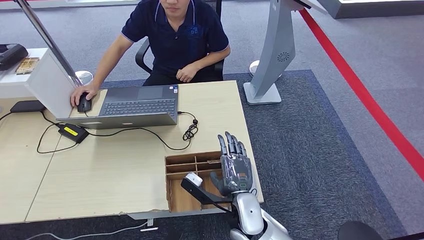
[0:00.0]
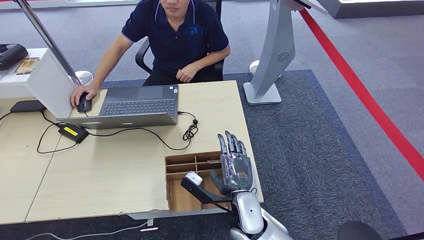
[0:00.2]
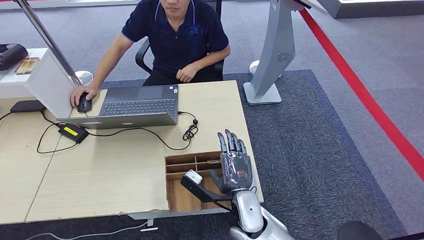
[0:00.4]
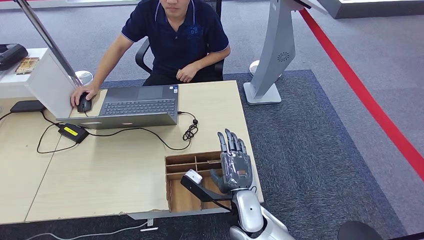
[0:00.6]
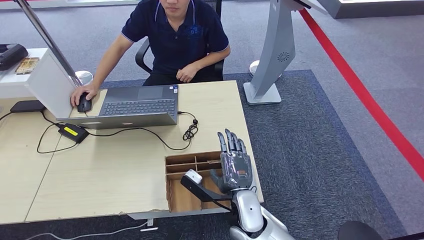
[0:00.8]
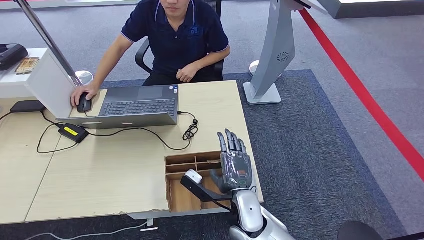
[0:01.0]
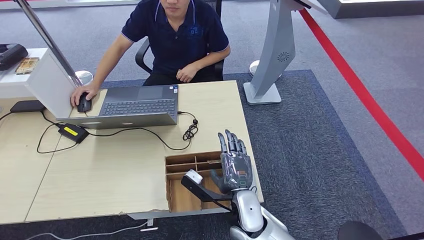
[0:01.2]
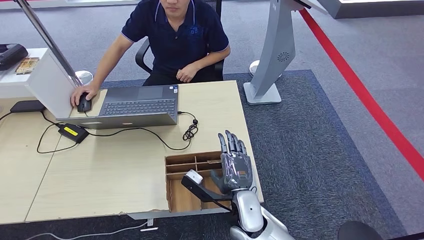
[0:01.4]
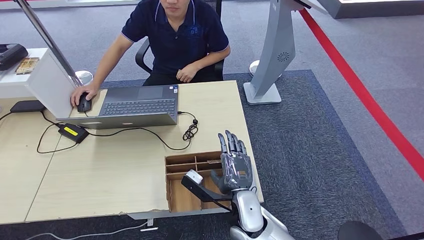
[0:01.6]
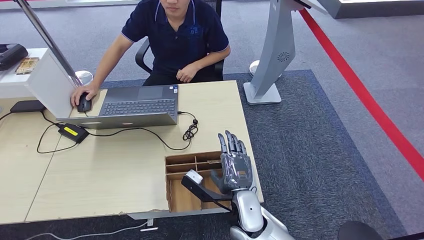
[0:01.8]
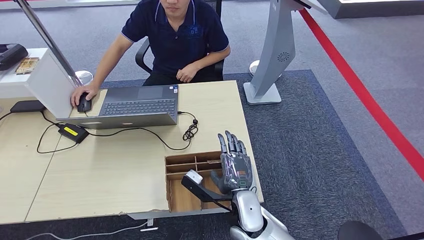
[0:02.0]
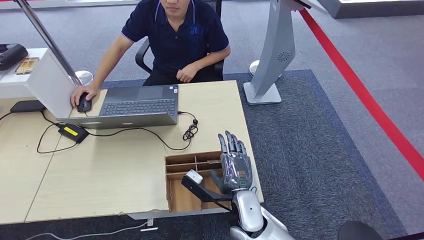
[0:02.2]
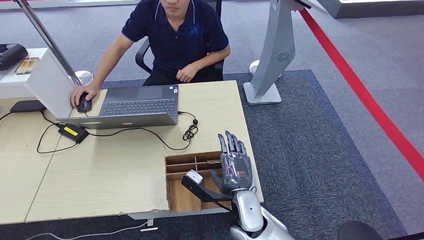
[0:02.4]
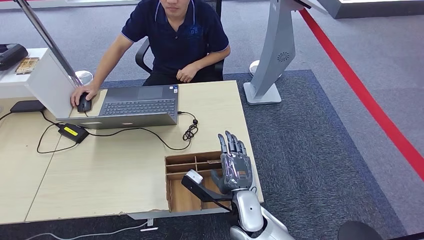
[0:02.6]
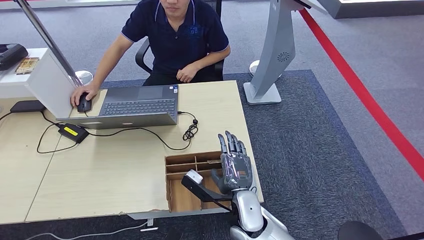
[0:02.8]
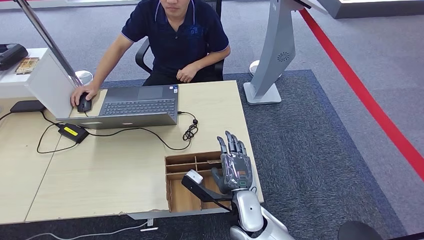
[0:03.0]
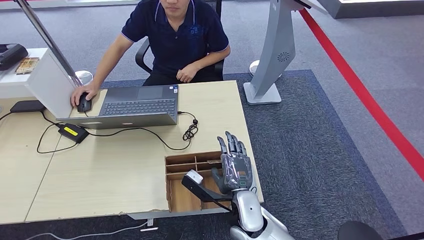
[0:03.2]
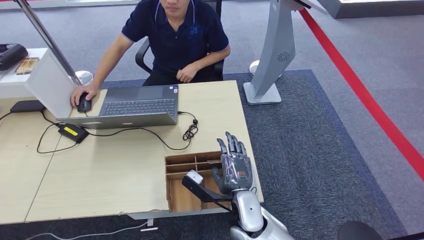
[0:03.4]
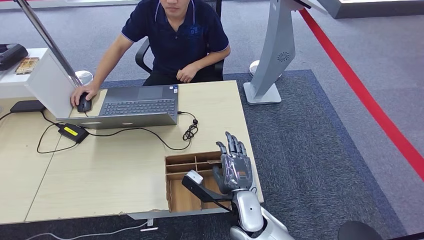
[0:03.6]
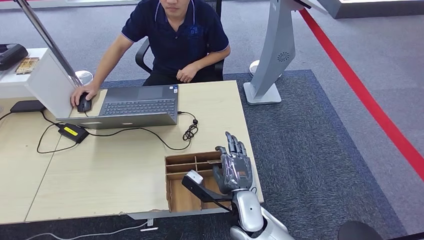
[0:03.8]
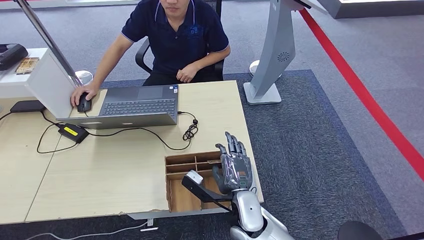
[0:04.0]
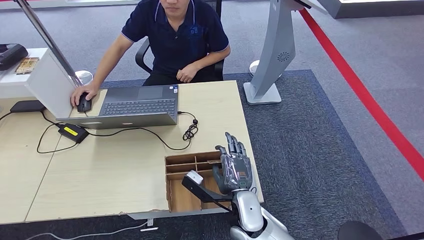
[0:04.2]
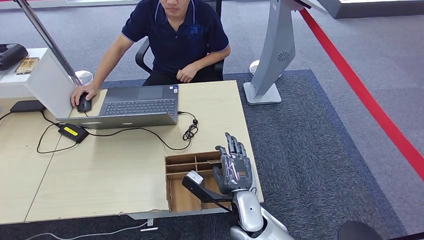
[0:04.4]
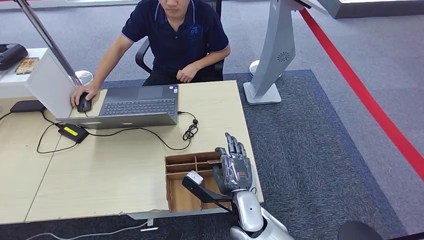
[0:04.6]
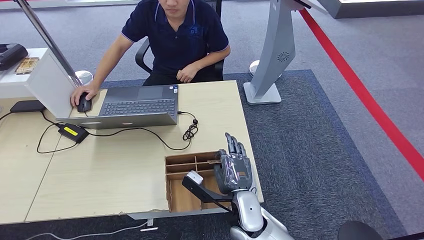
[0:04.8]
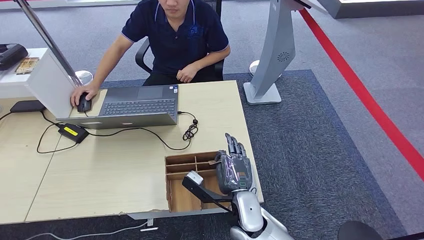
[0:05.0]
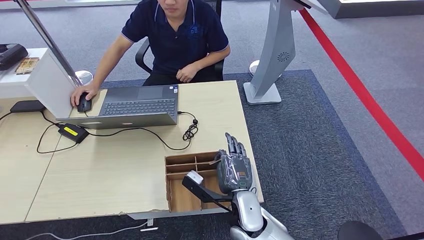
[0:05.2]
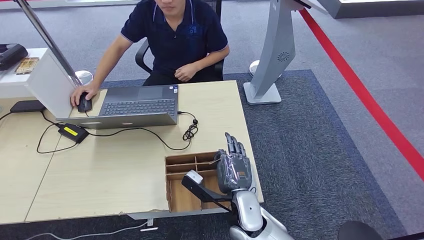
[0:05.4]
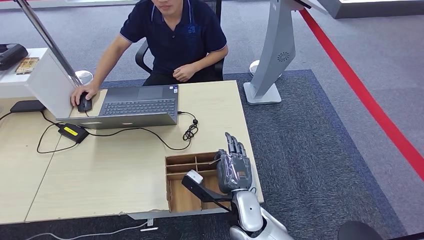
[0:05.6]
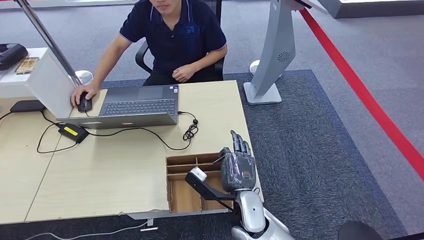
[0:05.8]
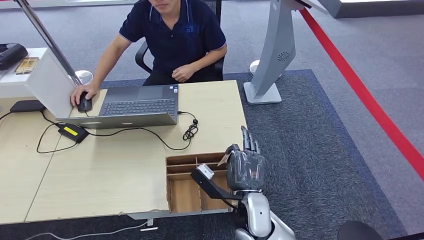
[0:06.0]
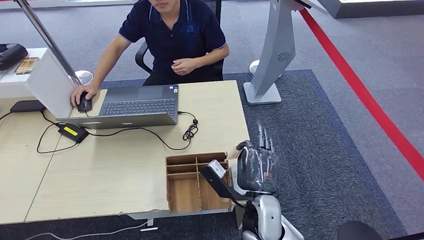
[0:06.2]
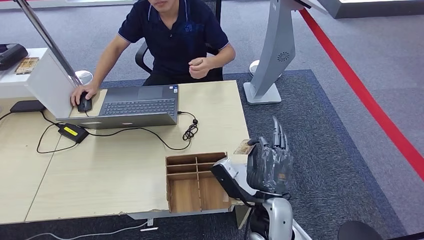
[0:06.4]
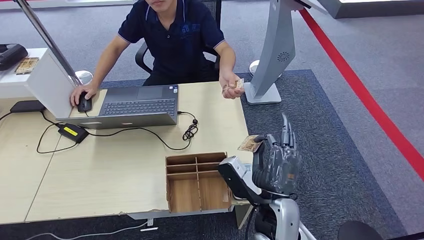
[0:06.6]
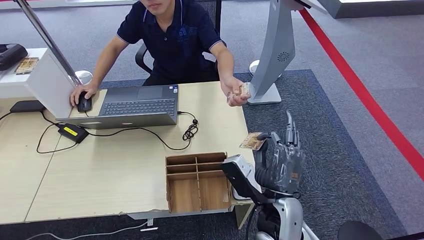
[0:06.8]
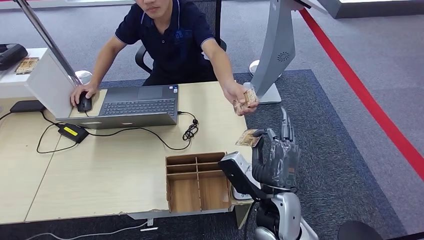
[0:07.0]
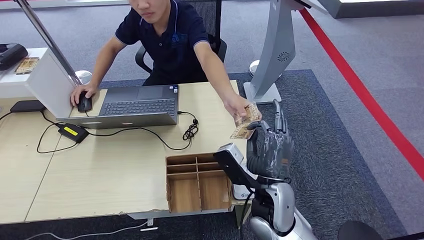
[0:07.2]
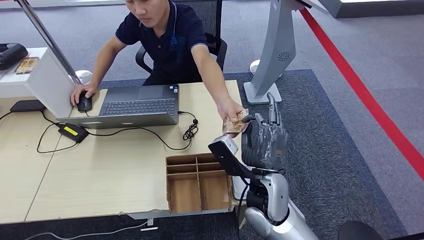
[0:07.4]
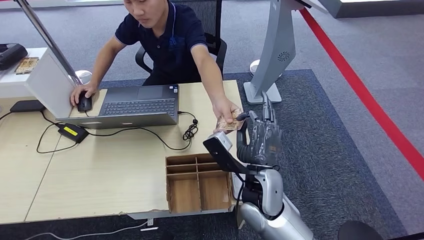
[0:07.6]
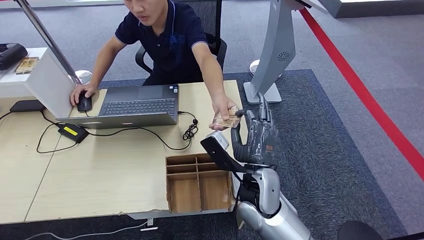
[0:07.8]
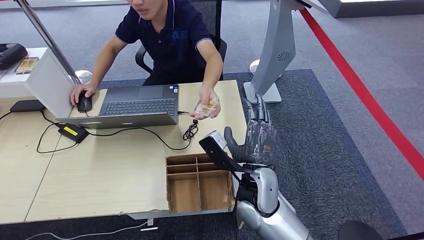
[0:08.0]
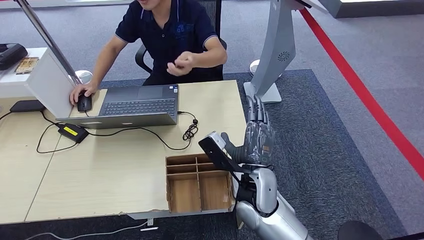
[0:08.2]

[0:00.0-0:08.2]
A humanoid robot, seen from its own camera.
Step, 0:00.0 to 0:05.6: Pick up the room key from the key card box.
Step, 0:05.8 to 0:08.2: Hand the room key to the person.
0:00.0 to 0:05.0: Both hands stay put.
0:05.0 to 0:06.6: The right hand goes about 10 cm upward.
0:06.6 to 0:08.2: The right hand shifts about 5 cm forward.
